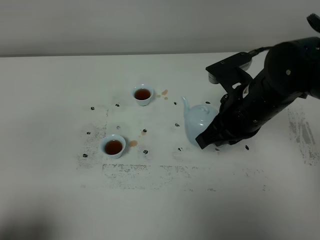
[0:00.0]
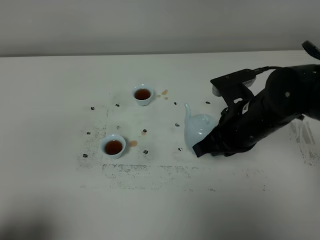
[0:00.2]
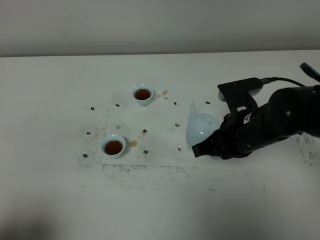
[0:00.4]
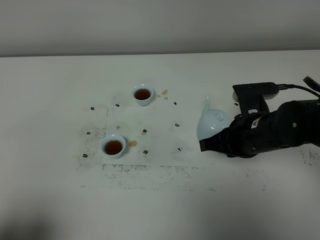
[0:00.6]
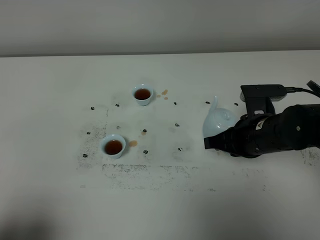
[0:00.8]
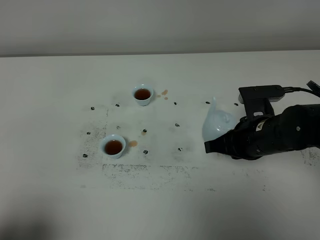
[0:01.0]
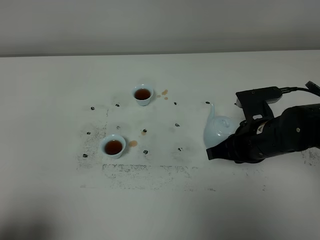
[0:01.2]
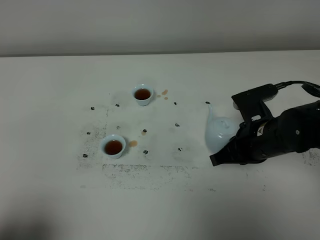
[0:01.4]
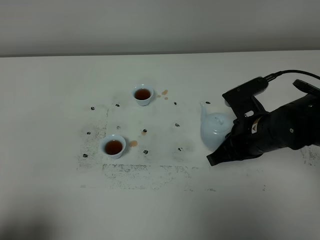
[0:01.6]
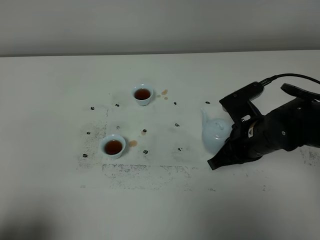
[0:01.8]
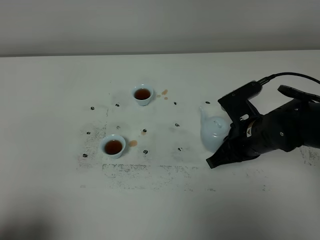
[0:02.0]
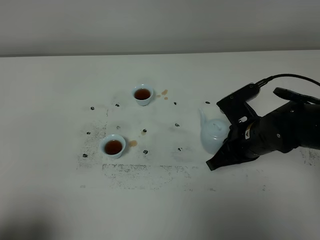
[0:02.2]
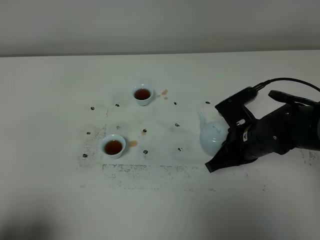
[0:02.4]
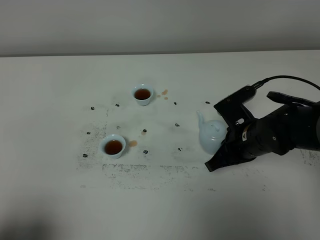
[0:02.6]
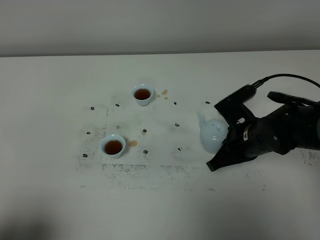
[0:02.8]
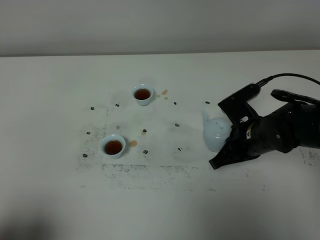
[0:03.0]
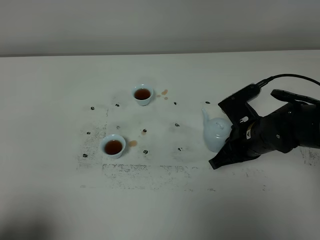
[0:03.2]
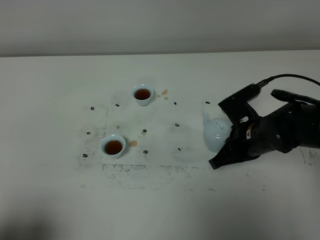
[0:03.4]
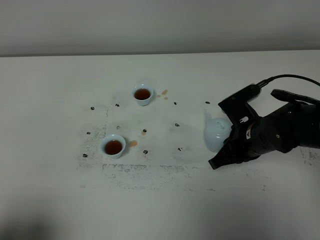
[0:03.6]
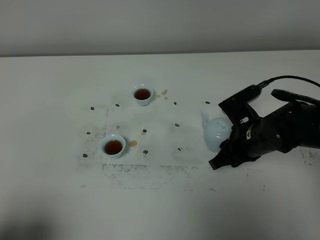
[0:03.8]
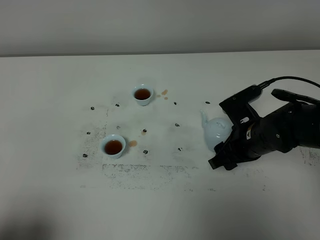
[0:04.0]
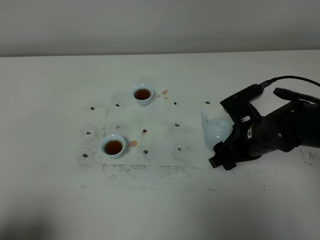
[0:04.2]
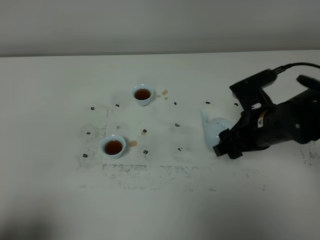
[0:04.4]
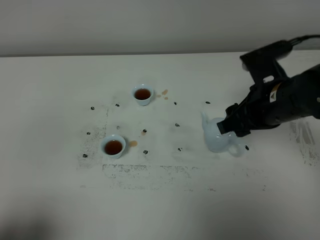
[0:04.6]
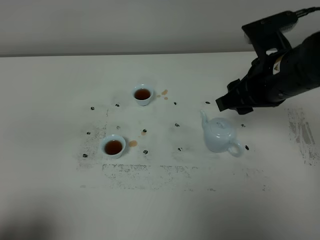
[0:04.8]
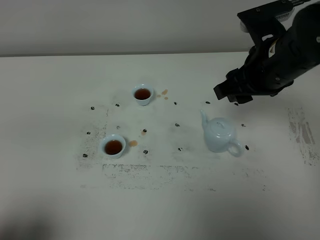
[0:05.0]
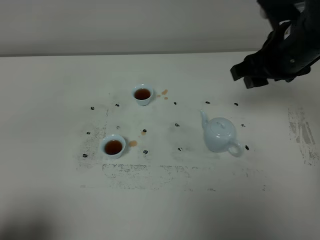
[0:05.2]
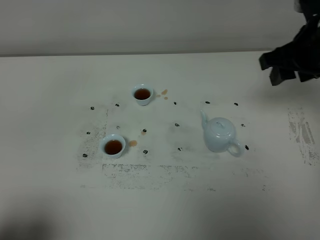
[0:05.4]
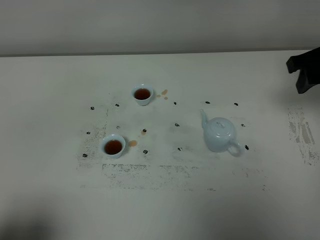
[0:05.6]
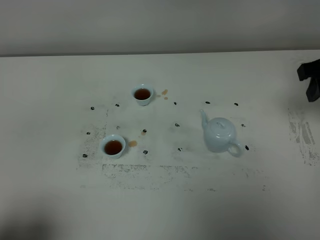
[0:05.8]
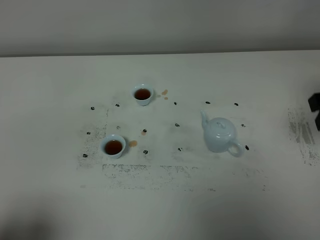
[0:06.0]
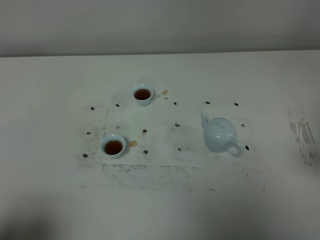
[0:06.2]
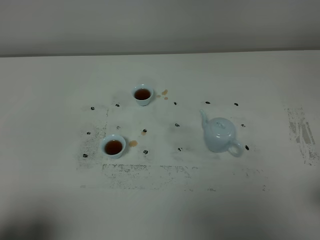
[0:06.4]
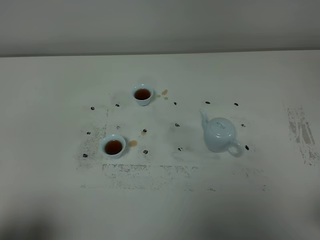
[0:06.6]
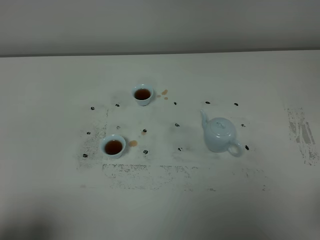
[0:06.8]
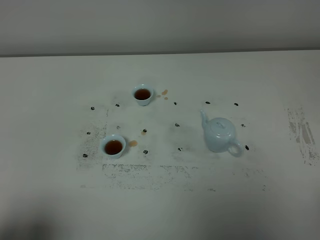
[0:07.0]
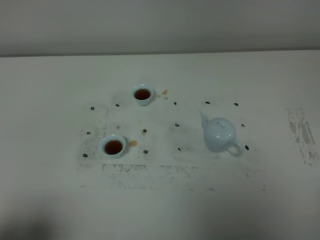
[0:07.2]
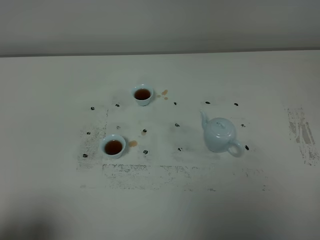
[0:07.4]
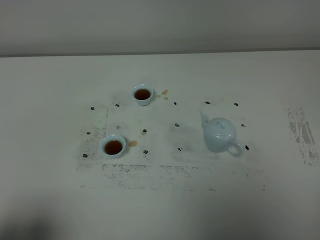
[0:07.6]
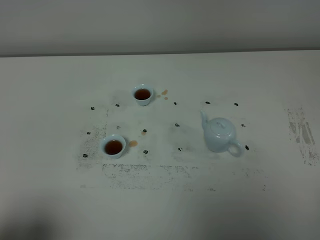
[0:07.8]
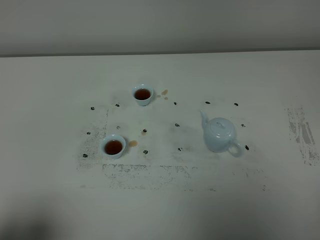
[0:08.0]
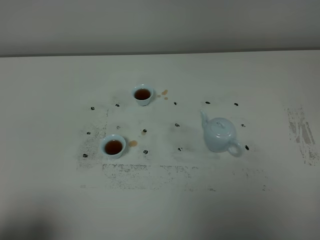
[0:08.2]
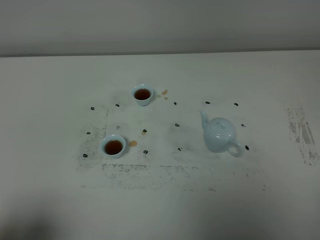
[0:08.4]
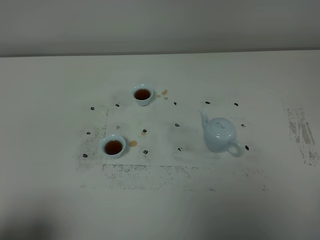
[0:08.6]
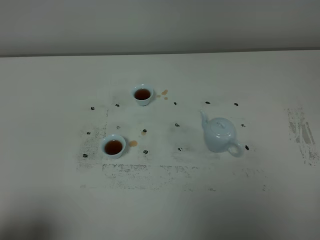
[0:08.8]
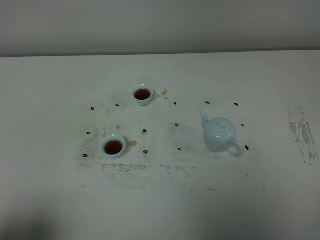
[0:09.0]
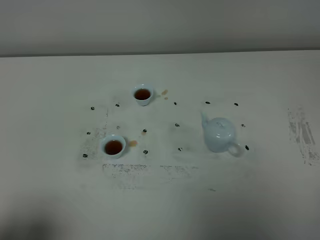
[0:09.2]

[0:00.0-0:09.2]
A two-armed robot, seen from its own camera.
Task of the whole recording: grasp the blue porcelain teapot and pour the tea into the two blue porcelain teacups one by one, put the blue porcelain teapot back in its original place.
0:00.0 to 0:01.6: The right gripper shifts some 5 cm downward.
0:01.6 to 0:03.0: The grippers make only small movements.
0:03.0 to 0:04.6: The right gripper is displaced upward by roughly 10 cm, and opens its fingers.
0:04.6 to 0:06.2: The right gripper goes roughly 15 cm to the right and backward.
0:07.6 to 0:09.2: The two grippers keep their place.

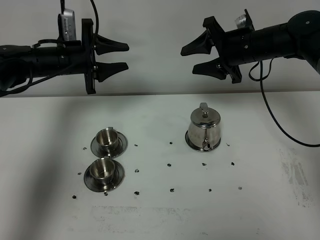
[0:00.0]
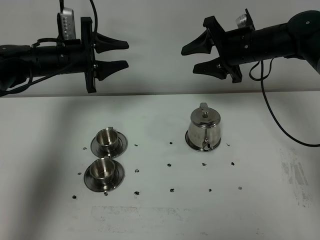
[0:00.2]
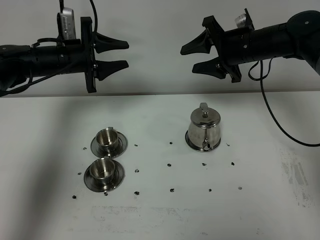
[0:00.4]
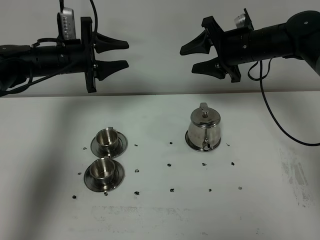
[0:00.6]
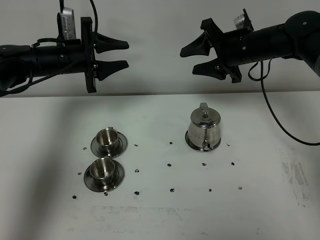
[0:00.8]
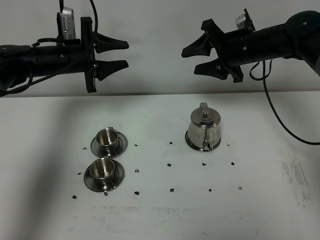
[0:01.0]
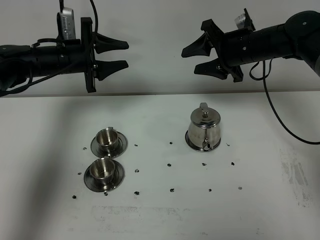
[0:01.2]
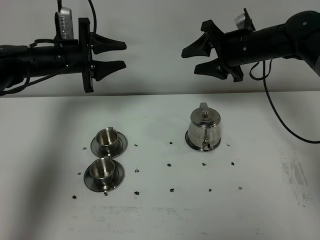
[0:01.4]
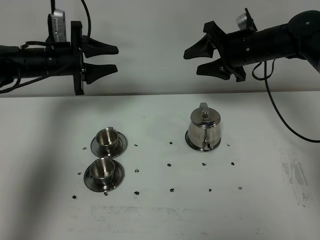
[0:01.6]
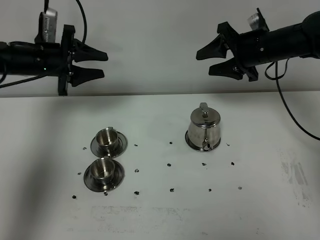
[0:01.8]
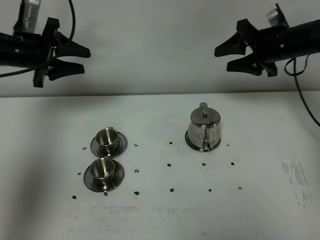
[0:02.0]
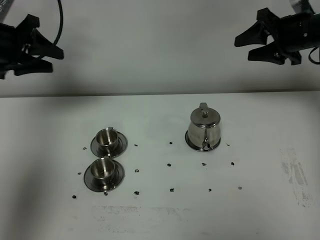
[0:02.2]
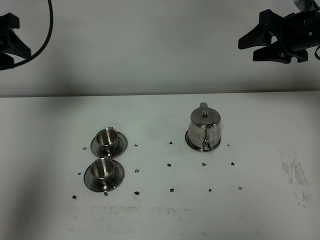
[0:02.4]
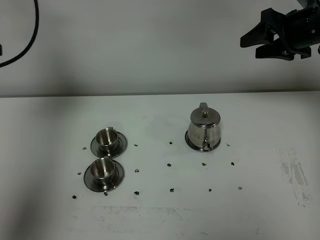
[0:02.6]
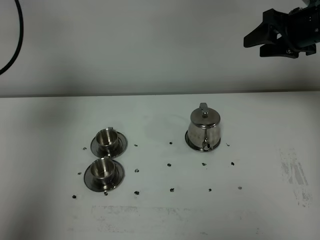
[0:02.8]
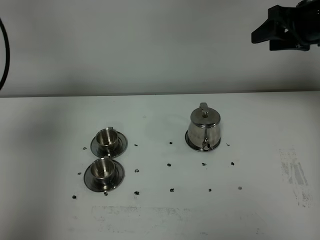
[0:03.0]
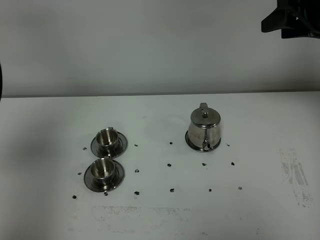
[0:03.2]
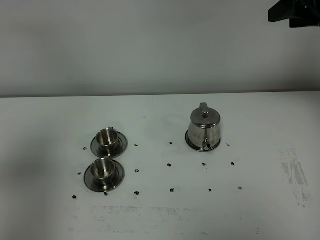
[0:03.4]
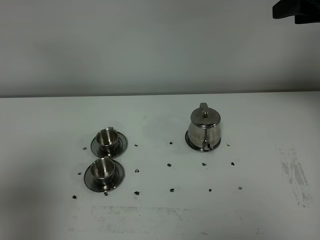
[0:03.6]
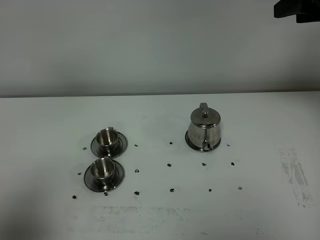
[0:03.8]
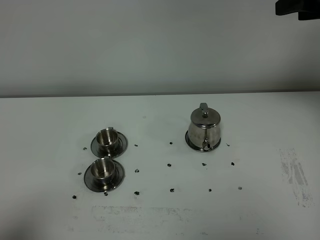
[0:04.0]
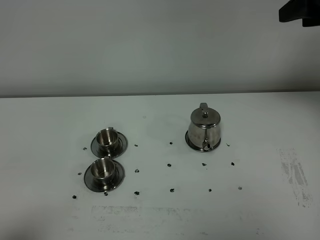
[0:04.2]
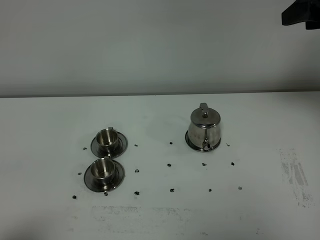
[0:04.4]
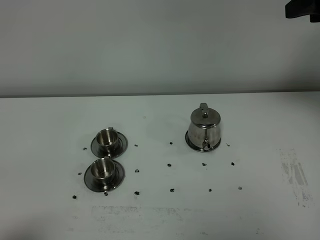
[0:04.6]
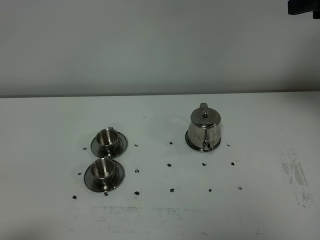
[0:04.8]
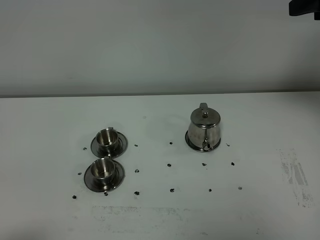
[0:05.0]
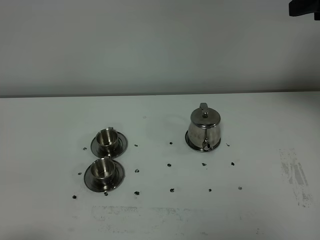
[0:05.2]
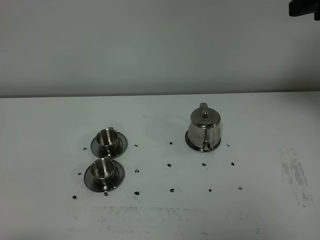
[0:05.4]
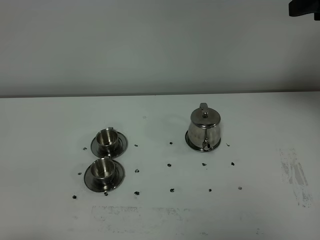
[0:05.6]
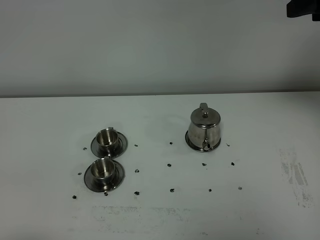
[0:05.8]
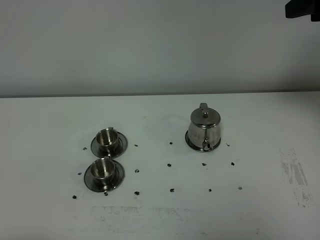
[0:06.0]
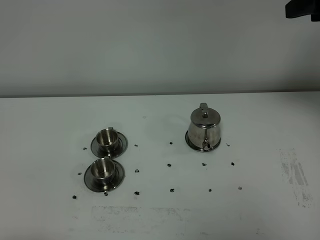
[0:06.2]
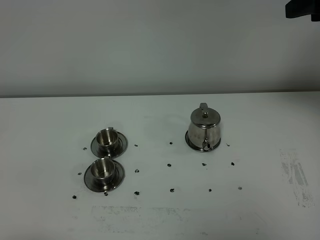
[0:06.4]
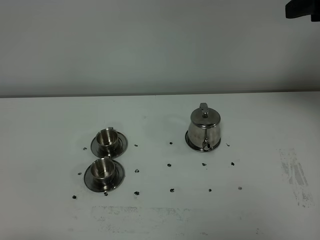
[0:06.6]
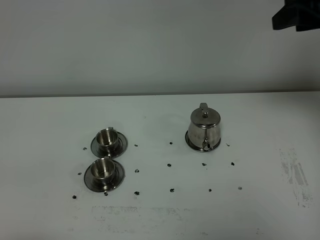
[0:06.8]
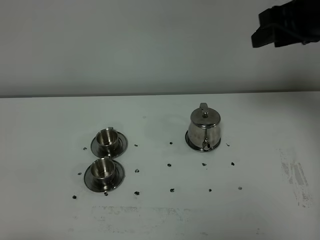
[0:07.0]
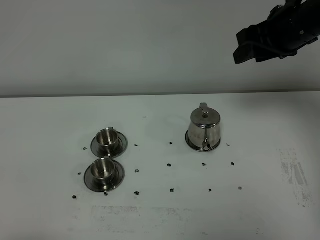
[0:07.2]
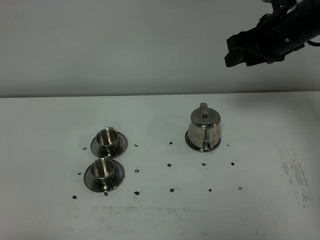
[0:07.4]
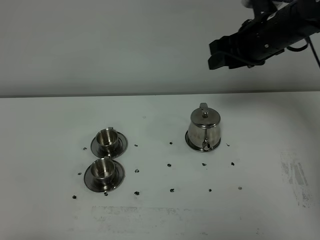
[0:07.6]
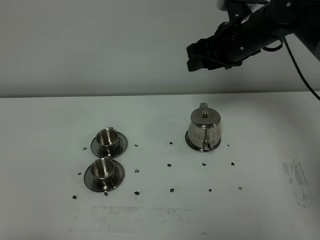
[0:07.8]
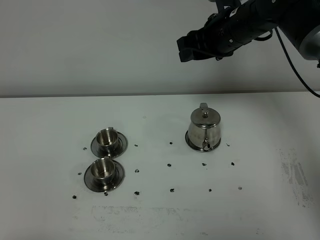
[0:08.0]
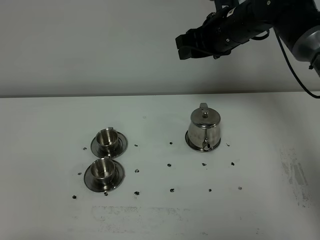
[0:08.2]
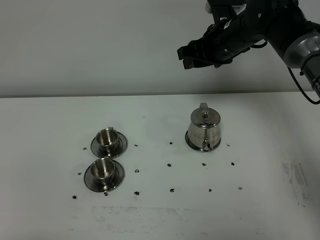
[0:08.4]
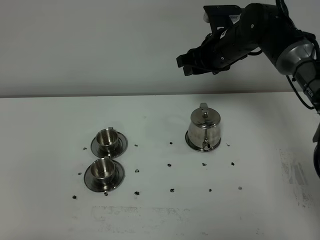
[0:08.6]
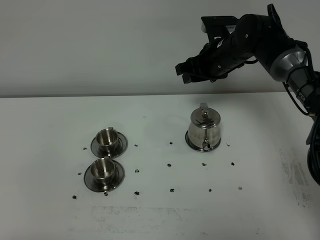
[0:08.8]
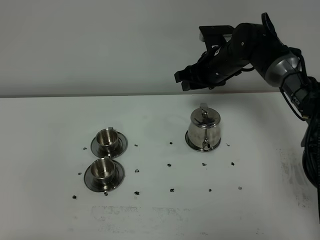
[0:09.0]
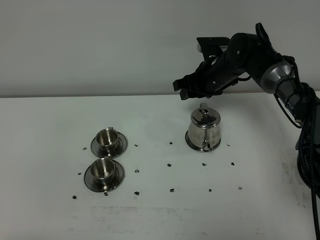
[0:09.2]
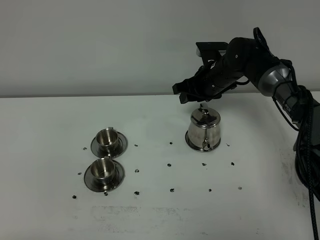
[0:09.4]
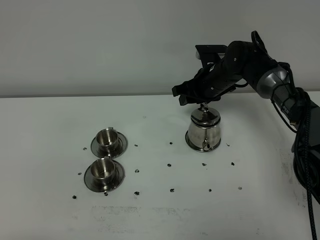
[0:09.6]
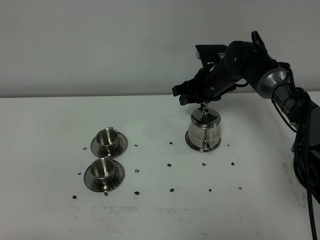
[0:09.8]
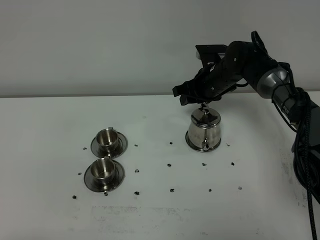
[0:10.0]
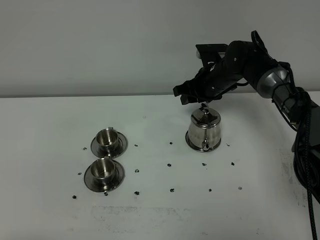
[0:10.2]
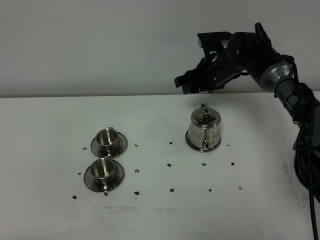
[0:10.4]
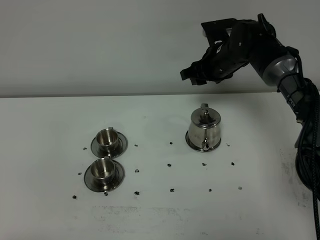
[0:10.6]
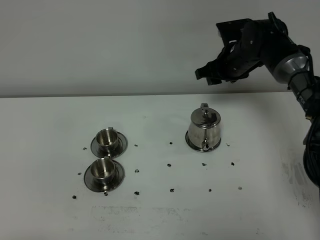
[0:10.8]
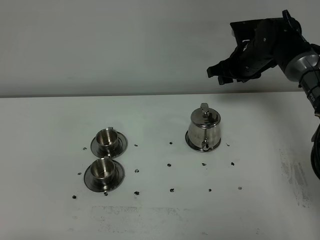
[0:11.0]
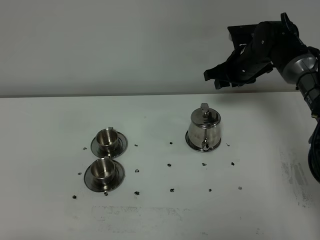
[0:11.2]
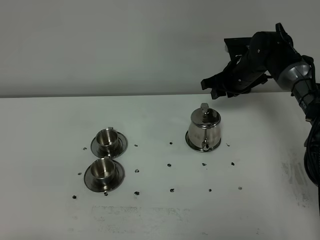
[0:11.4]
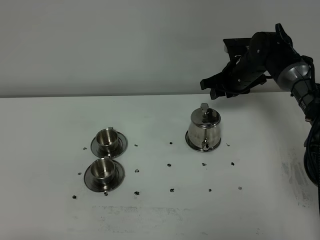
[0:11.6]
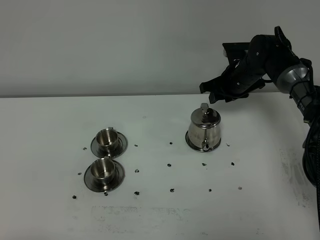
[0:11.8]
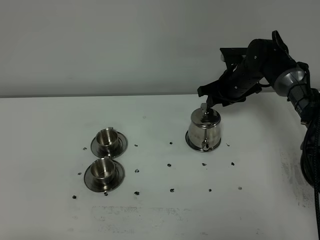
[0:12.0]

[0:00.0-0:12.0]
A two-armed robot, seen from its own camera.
Task of the whole recording: grasp the stainless steel teapot and pour the tea into the two stainless steel teacups one by one, put the stainless steel teapot back in its original place.
0:00.0 to 0:01.6: The grippers stay close to where they were, moving slightly.
0:01.6 to 0:03.0: The left gripper goes some 30 cm backward, upward and to the left. Meanwhile the right gripper is displaced to the right and upward by about 15 cm.
0:03.0 to 0:04.4: The right gripper shifts approximately 10 cm backward and upward. Meanwhile the left gripper moves backward and downward, approximately 30 cm.
0:06.0 to 0:07.6: The right gripper goes about 20 cm downward, to the left and forward.
0:07.6 to 0:09.0: The right gripper shifts roughly 15 cm downward, forward and to the left.
0:09.0 to 0:10.4: The grippers make only small movements.
0:10.4 to 0:12.0: The right gripper moves to the right, some 5 cm.

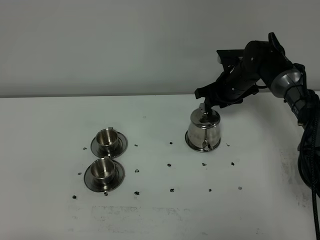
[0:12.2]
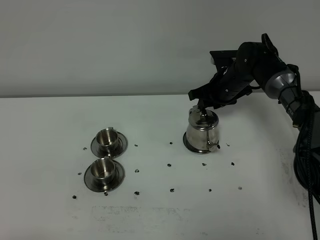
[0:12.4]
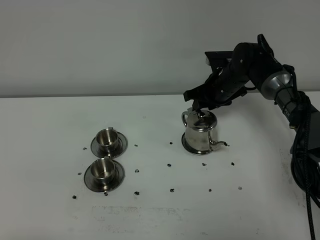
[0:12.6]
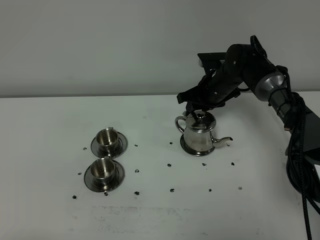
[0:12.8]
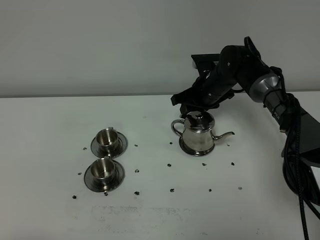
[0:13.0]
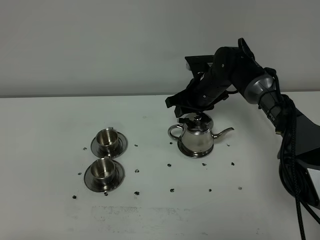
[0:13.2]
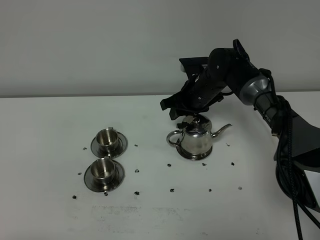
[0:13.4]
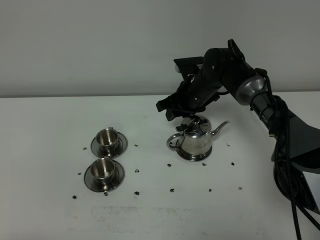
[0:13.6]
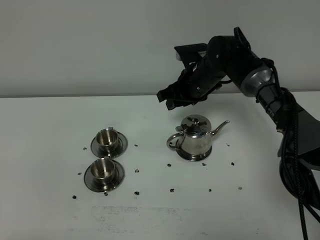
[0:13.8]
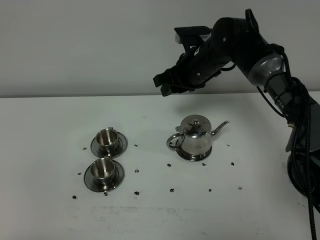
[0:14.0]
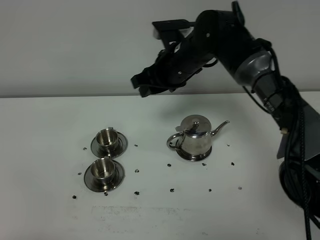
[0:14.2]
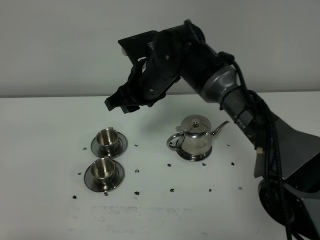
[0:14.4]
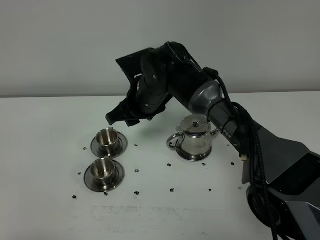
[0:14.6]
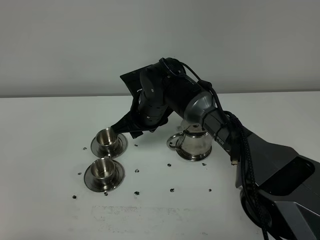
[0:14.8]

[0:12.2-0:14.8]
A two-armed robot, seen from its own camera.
Task of the whole recording: grasp the stainless steel teapot and pour the tea into the two stainless steel teacups one by one, put the stainless steel teapot back in its original place.
0:12.2 to 0:13.4: The right gripper heads to the left, covering approximately 10 cm.
0:13.4 to 0:14.8: The right gripper is displaced to the left and backward by approximately 15 cm.
